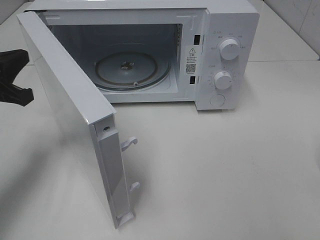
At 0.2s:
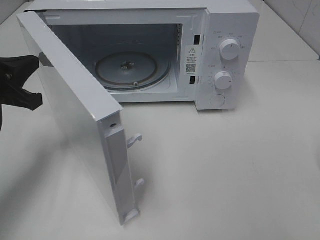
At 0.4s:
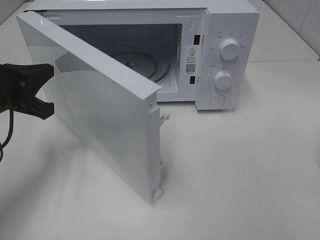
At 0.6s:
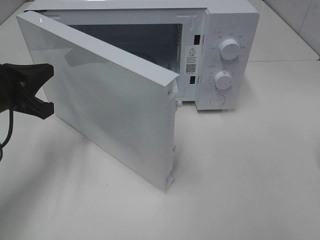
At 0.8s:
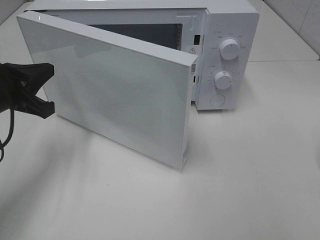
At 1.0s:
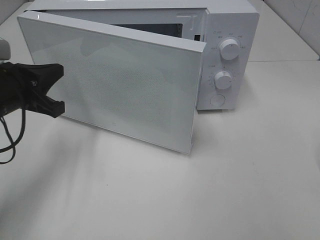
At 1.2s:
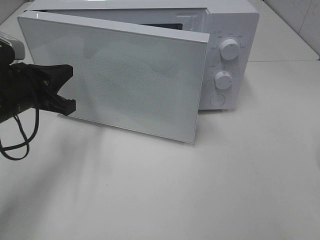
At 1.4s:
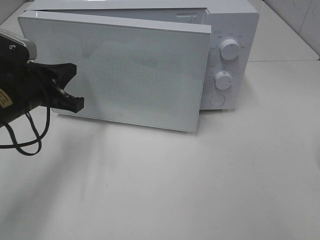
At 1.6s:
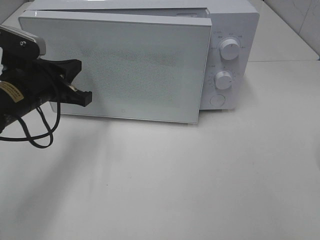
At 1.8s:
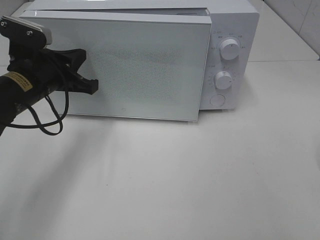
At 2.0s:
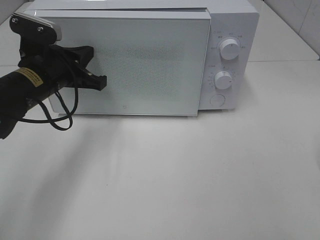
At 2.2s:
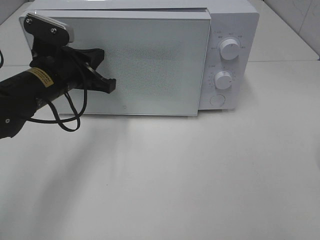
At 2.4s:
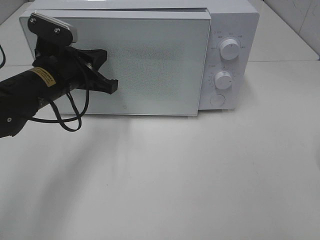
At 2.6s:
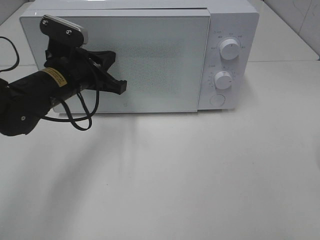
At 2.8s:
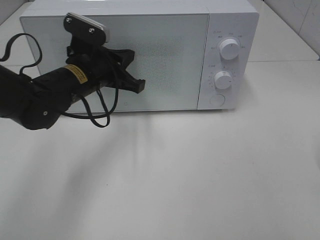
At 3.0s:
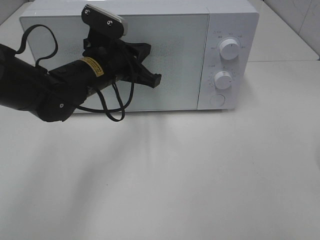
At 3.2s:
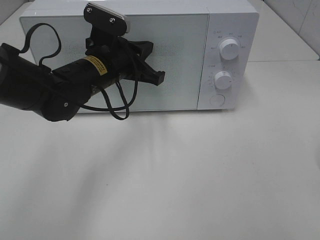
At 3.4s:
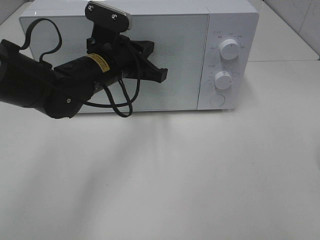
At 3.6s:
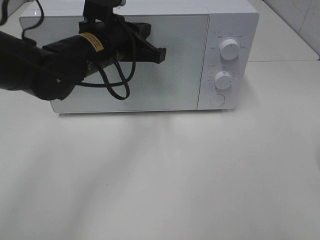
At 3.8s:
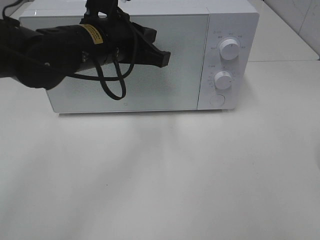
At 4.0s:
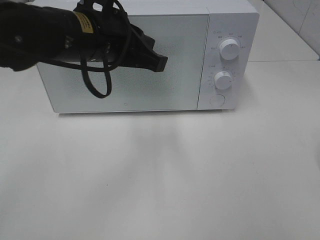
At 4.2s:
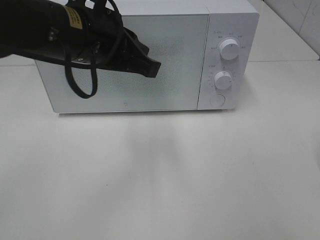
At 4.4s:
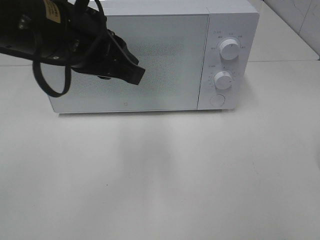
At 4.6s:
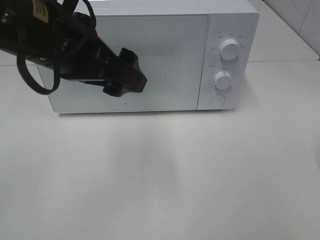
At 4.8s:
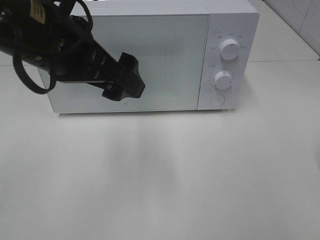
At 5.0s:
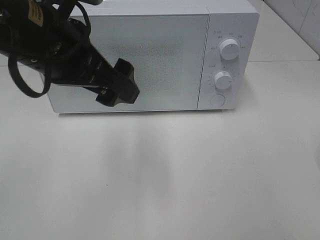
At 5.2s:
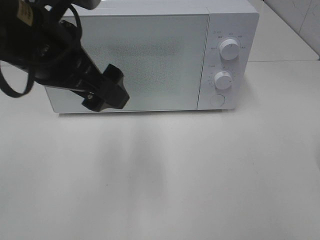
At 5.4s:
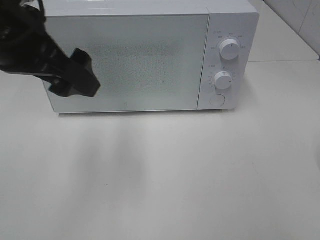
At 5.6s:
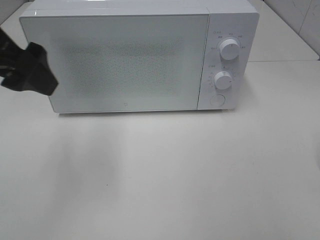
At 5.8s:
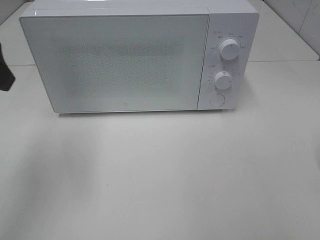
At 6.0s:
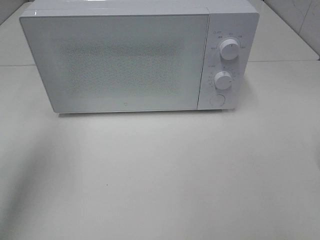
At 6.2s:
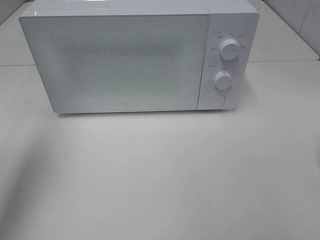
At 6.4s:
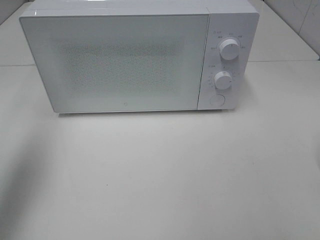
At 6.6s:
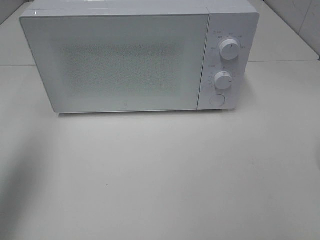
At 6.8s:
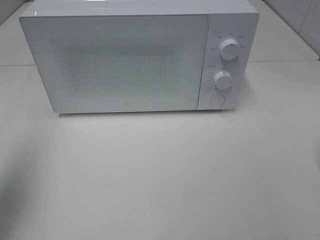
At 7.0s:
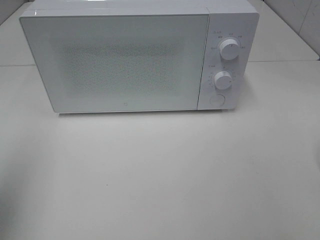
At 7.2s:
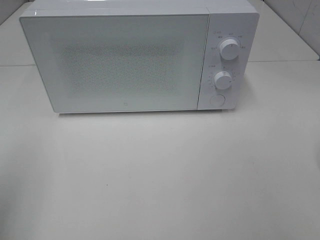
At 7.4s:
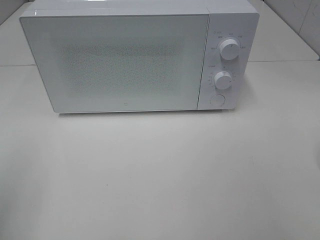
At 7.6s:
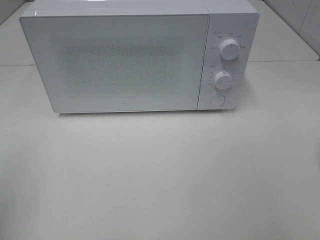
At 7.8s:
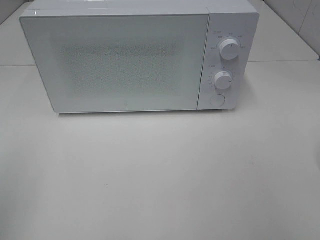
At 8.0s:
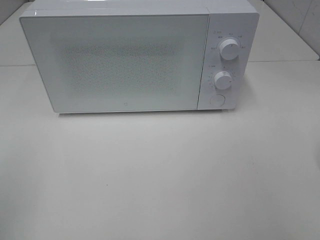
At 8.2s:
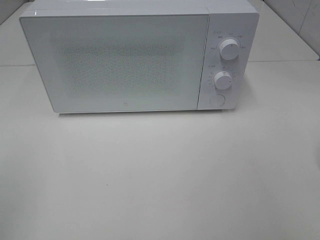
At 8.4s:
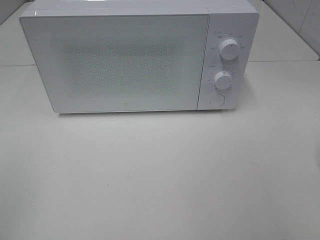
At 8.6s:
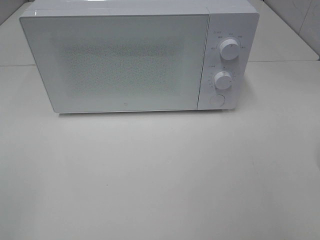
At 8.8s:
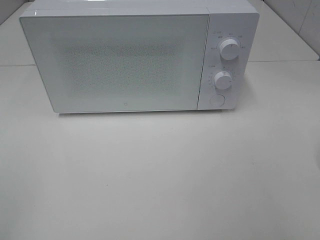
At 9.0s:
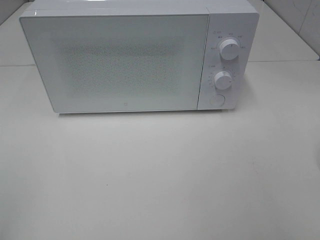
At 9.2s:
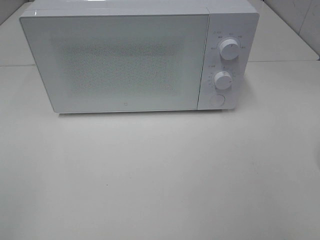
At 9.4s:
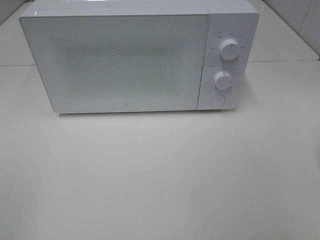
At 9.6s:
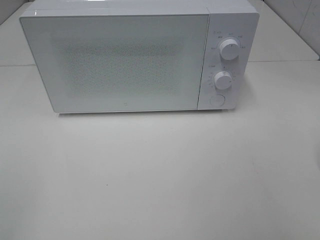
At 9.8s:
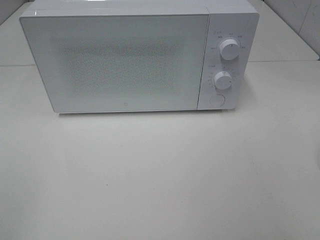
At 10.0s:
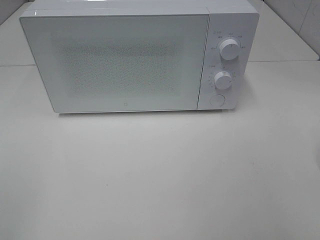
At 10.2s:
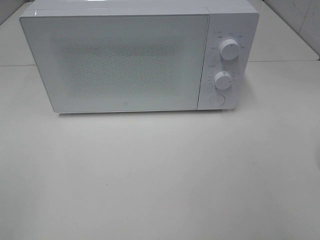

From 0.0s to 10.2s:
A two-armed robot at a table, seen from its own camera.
Task of the whole recording: Heat the burger.
Step, from 0.0s to 2.8s: Left hand: close the microwave door.
From 0.0s to 1.4s: The left gripper travels to the right by about 5 cm.
From 1.4s to 3.0s: The left gripper travels to the right and forward by roughly 15 cm.
From 3.0s to 4.4s: The left gripper travels upward and backward by about 15 cm.
From 4.4s to 5.8s: The left gripper heads to the left, covering about 15 cm, and opens.
From 5.8s to 7.2s: The left gripper is displaced backward, to the left and downward by approximately 15 cm.
From 8.8s to 10.2s: Both grippers stay put.

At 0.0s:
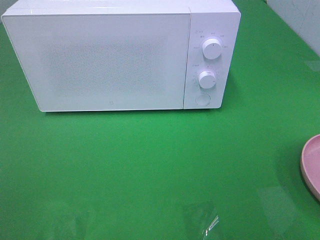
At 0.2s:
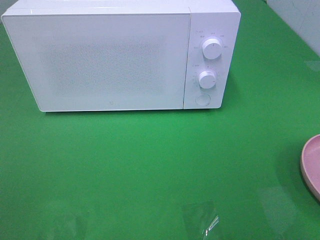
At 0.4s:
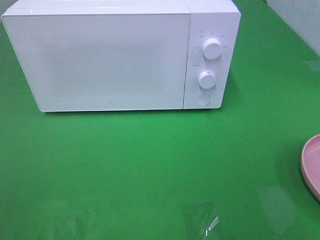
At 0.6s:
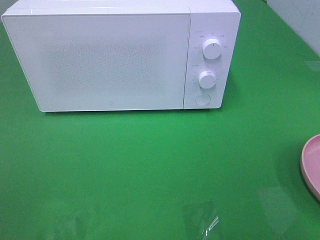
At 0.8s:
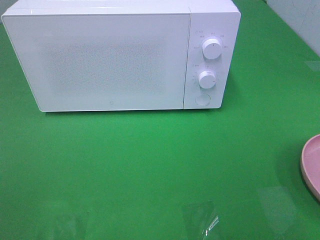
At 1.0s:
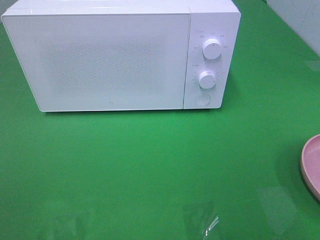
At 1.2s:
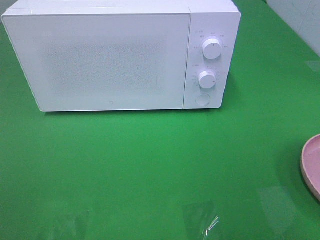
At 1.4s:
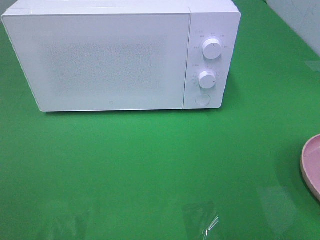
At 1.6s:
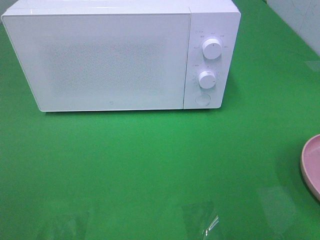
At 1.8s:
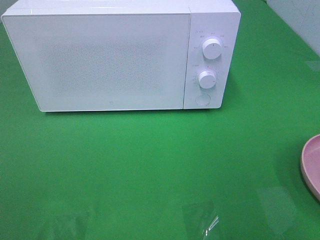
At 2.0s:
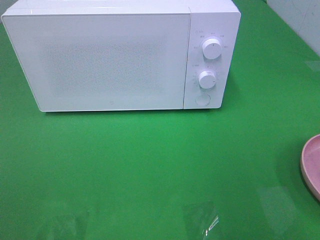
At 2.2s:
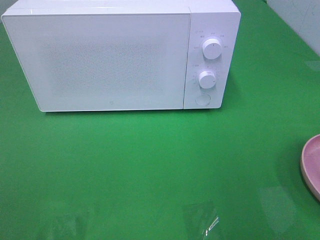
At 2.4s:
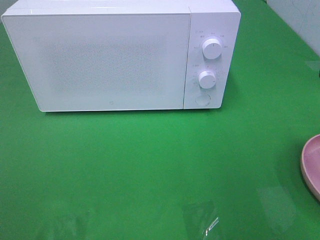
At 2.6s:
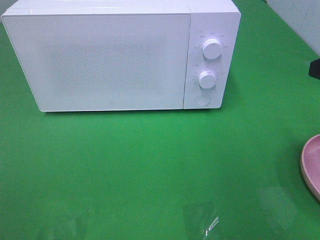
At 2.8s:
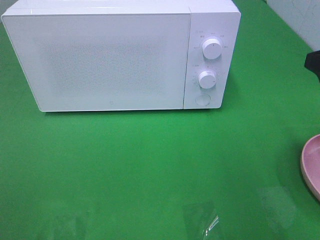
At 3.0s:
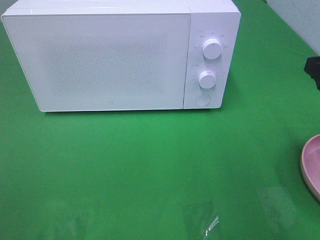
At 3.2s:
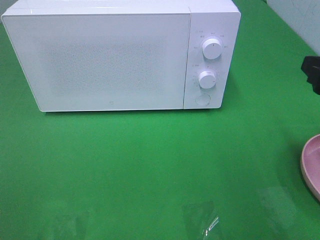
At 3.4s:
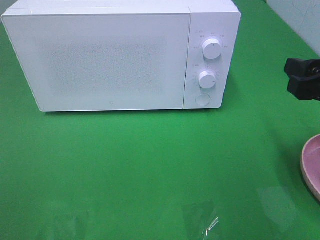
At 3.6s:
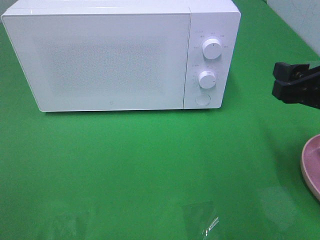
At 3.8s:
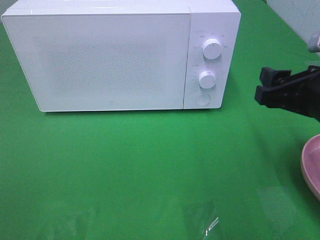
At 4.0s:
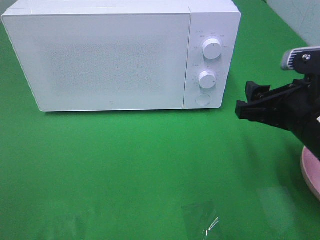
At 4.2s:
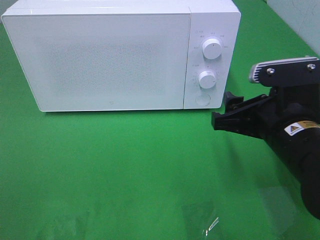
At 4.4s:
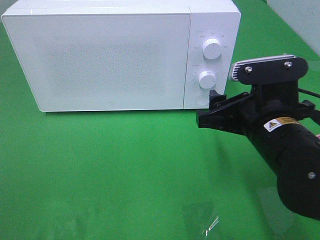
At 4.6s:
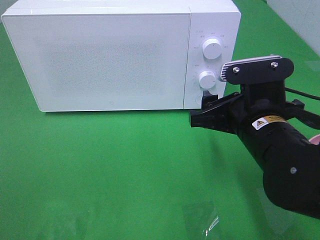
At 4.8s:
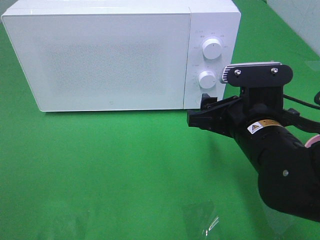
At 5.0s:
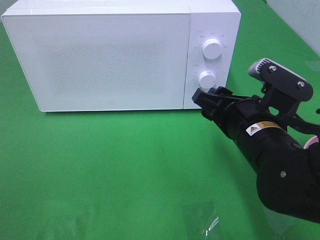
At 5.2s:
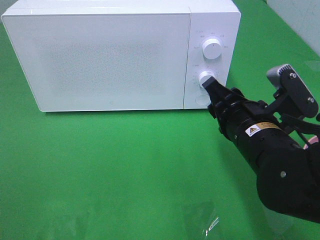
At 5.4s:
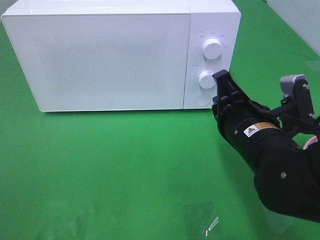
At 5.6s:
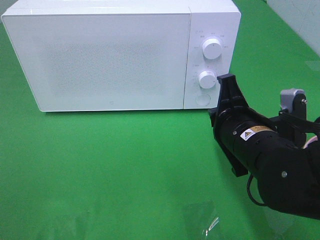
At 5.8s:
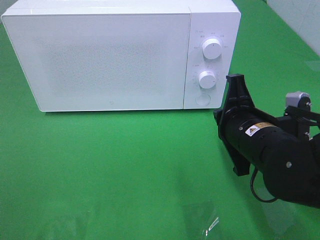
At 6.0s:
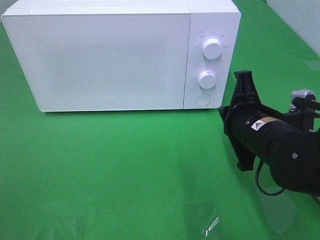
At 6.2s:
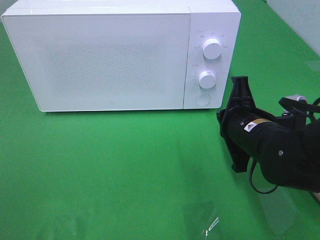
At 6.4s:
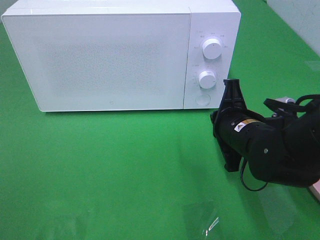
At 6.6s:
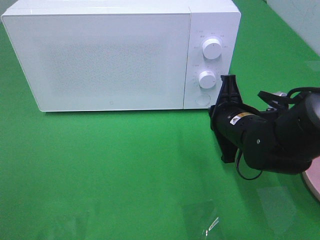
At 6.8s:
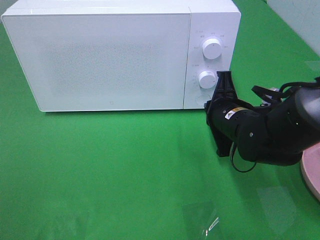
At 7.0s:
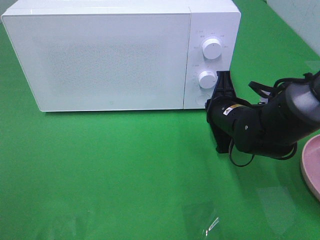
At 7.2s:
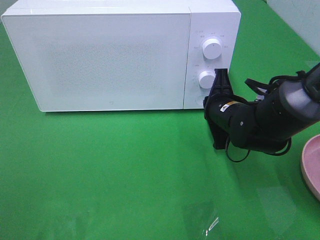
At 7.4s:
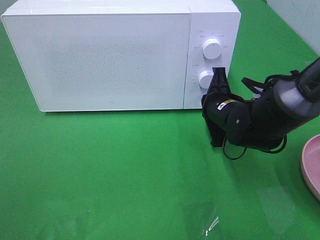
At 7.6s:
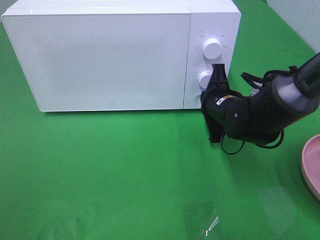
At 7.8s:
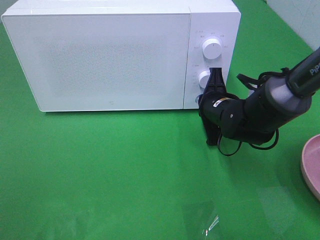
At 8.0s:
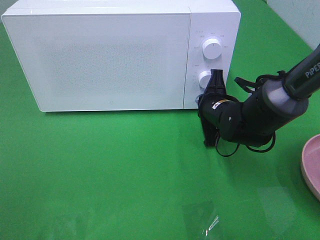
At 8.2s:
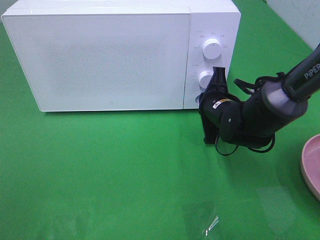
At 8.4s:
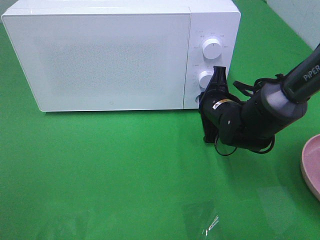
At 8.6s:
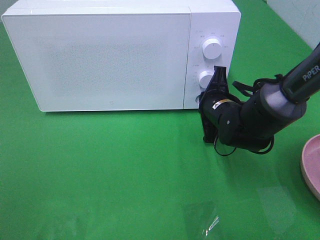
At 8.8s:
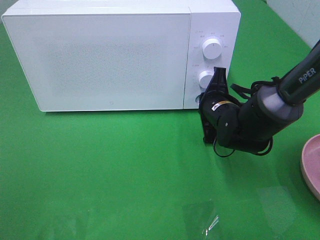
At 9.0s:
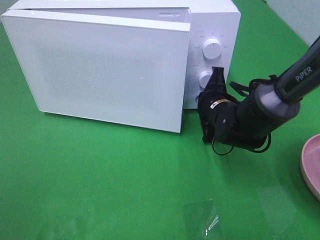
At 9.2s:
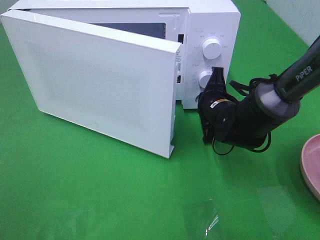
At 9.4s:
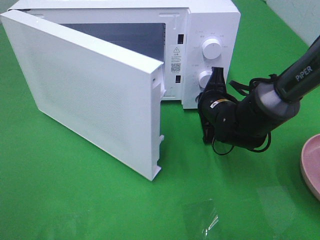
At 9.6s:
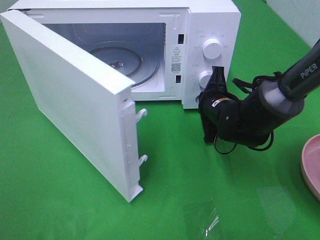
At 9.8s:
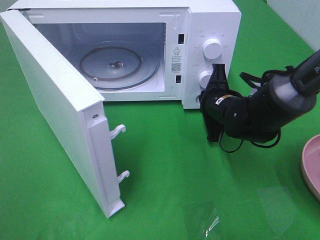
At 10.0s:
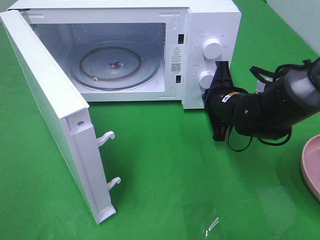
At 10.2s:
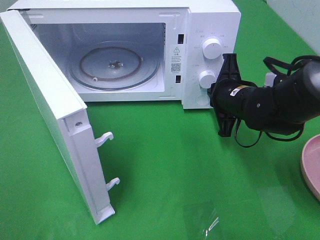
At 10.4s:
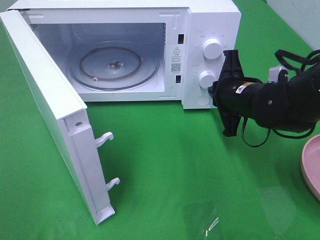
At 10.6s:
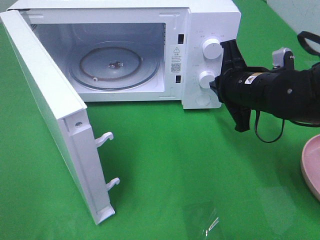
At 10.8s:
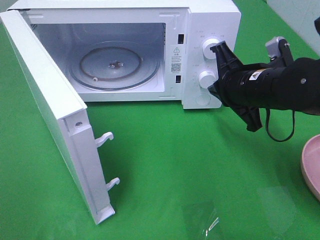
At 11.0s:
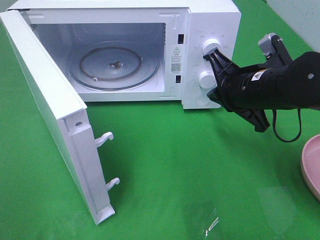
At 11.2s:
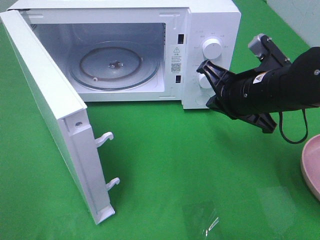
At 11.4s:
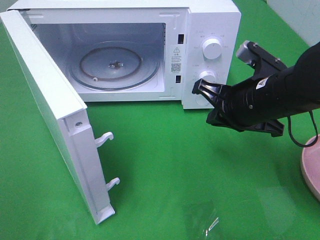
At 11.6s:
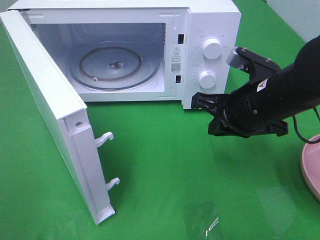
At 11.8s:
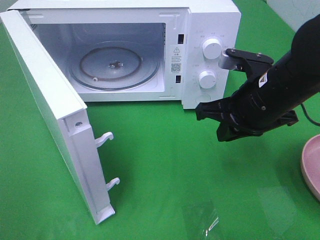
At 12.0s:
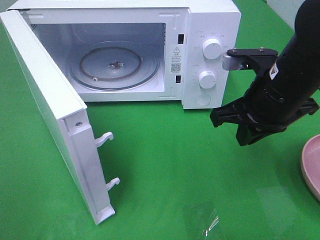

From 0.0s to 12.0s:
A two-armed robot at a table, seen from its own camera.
Task of the whole recording: Heat the burger.
Step, from 0.0s to 10.0s: Right hand: press the switch.
From 1.6s to 3.0s: The right gripper travels forward and downward by roughly 15 cm.
From 3.0s to 4.4s: The right gripper shifts approximately 15 cm to the left and downward.
From 4.4s to 6.0s: The right gripper closes up.
From 6.0s to 7.6s: The right gripper shifts approximately 10 cm forward.
From 7.6s to 9.0s: The grippers make only small movements.
From 9.0s to 10.4s: The right gripper travels upward by roughly 5 cm.
From 10.4s to 12.0s: The right gripper is displaced upward and backward by some 10 cm.
